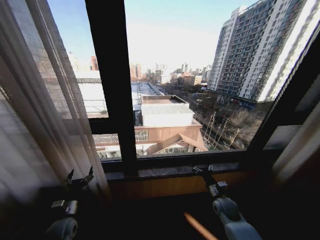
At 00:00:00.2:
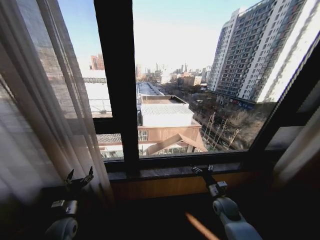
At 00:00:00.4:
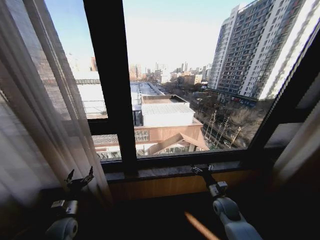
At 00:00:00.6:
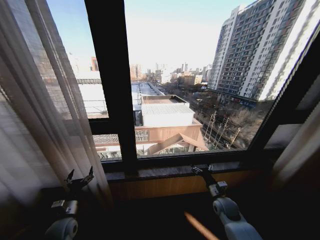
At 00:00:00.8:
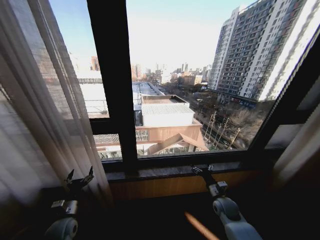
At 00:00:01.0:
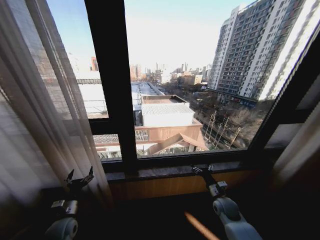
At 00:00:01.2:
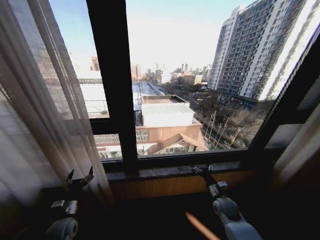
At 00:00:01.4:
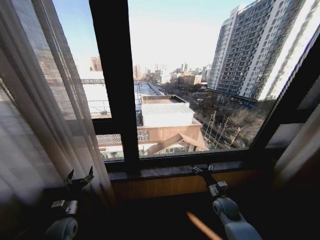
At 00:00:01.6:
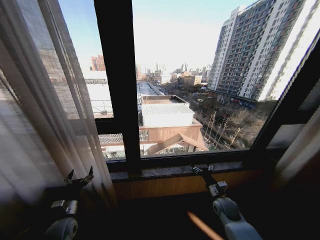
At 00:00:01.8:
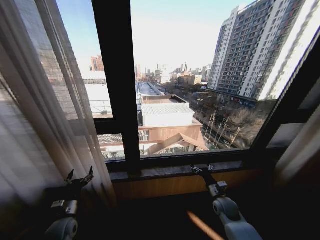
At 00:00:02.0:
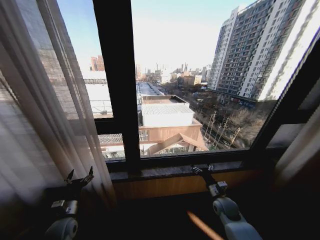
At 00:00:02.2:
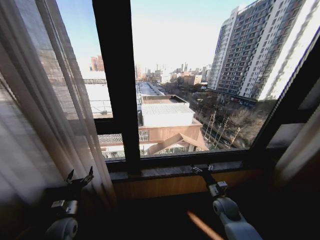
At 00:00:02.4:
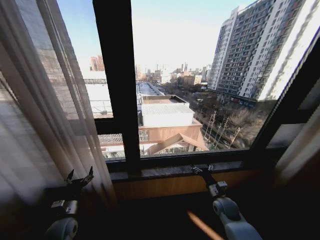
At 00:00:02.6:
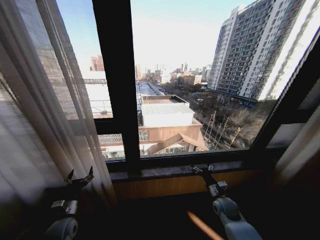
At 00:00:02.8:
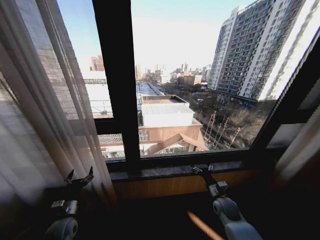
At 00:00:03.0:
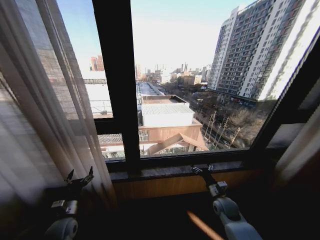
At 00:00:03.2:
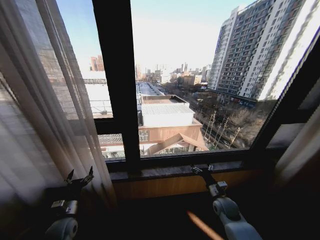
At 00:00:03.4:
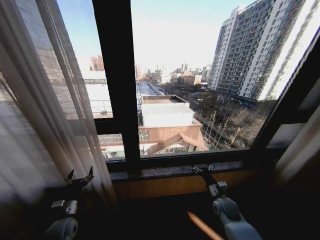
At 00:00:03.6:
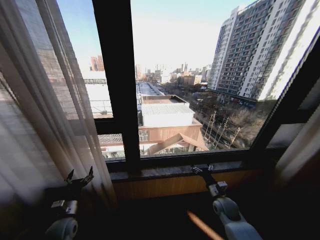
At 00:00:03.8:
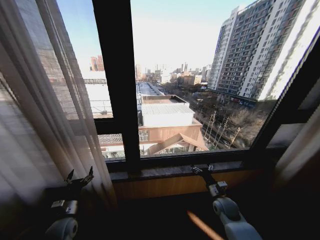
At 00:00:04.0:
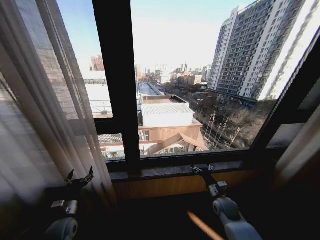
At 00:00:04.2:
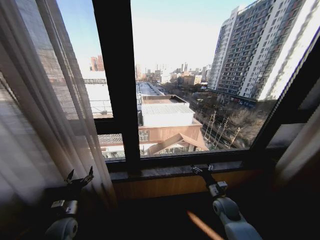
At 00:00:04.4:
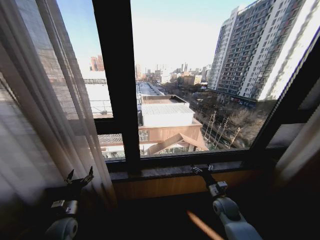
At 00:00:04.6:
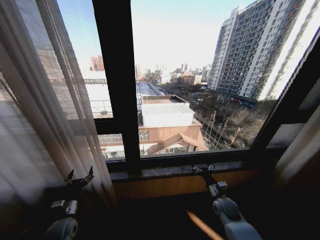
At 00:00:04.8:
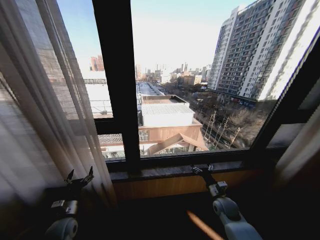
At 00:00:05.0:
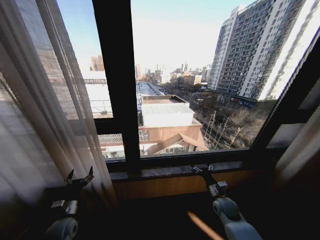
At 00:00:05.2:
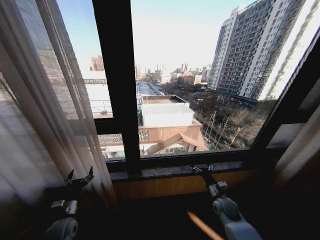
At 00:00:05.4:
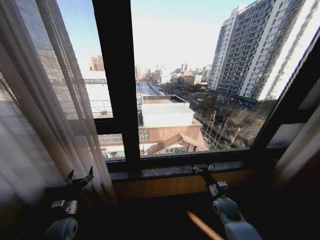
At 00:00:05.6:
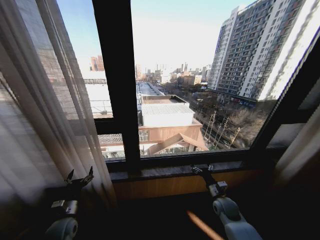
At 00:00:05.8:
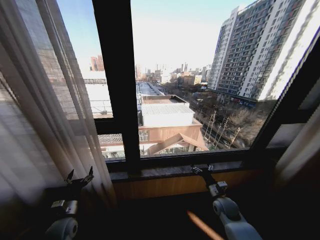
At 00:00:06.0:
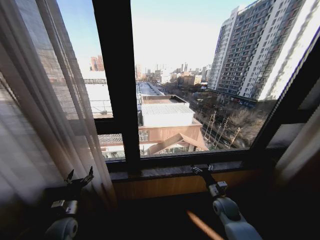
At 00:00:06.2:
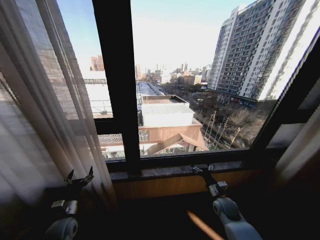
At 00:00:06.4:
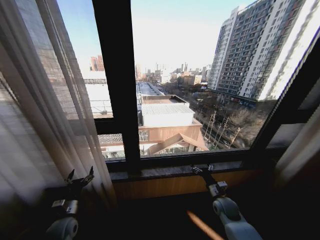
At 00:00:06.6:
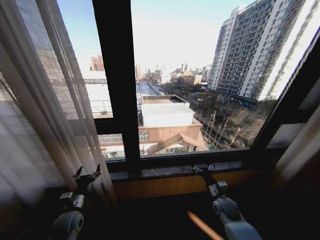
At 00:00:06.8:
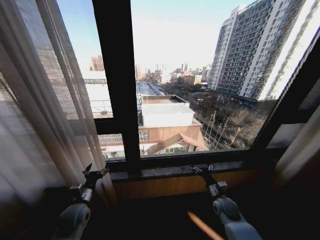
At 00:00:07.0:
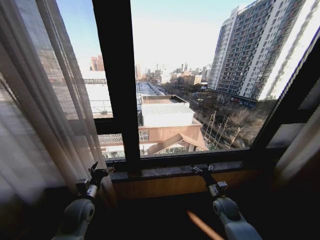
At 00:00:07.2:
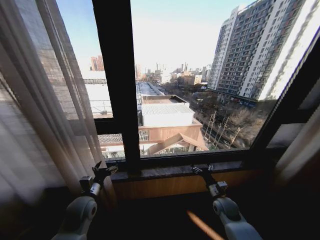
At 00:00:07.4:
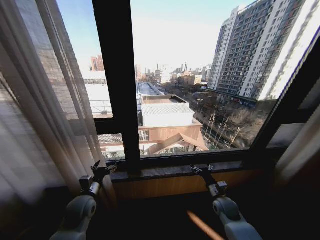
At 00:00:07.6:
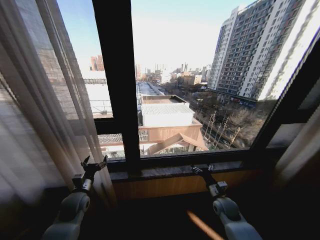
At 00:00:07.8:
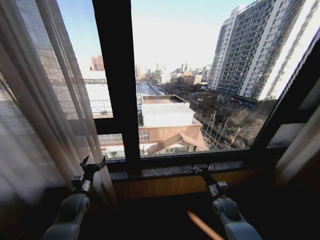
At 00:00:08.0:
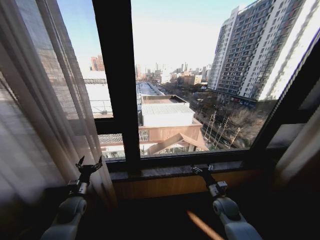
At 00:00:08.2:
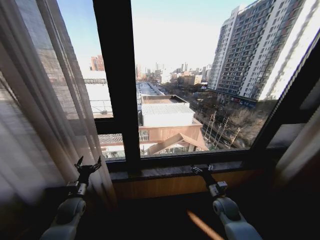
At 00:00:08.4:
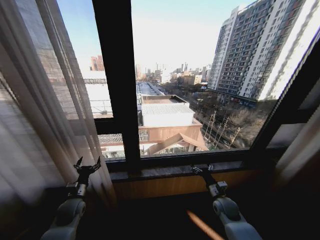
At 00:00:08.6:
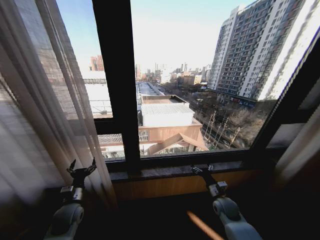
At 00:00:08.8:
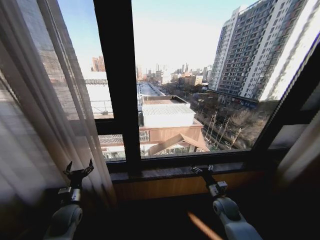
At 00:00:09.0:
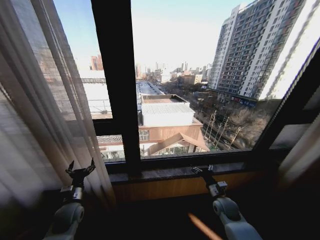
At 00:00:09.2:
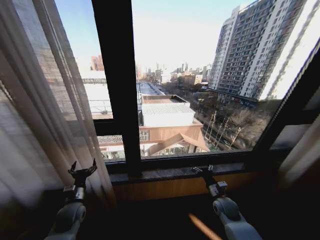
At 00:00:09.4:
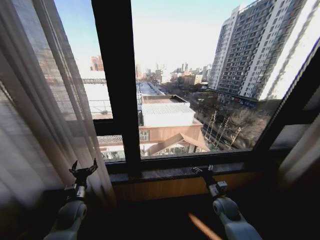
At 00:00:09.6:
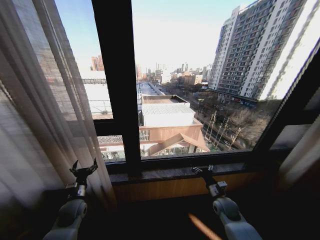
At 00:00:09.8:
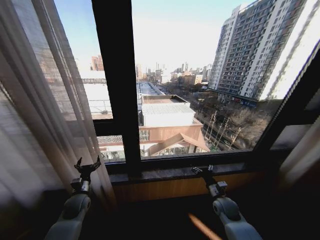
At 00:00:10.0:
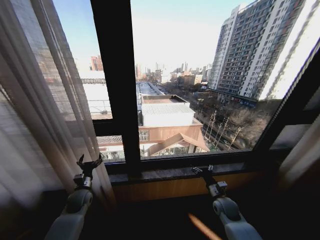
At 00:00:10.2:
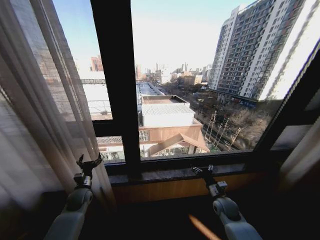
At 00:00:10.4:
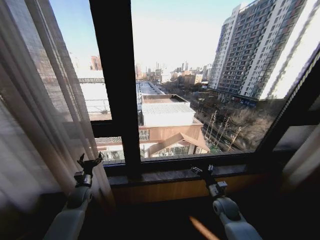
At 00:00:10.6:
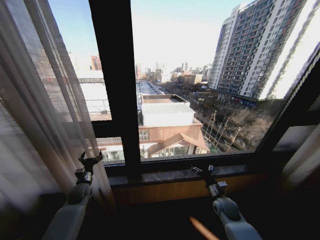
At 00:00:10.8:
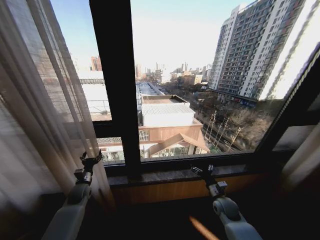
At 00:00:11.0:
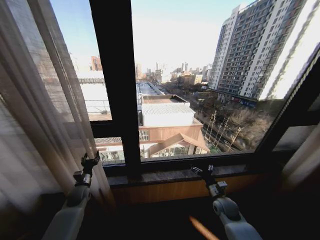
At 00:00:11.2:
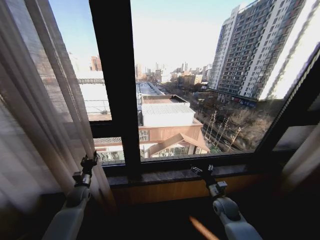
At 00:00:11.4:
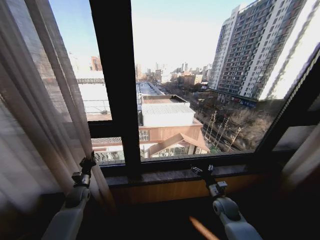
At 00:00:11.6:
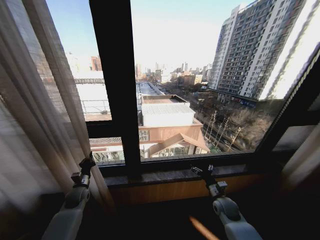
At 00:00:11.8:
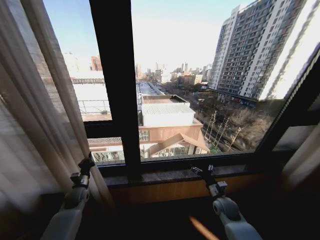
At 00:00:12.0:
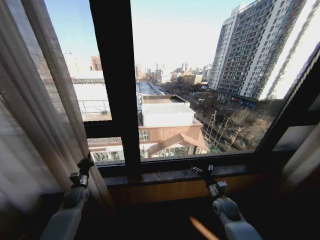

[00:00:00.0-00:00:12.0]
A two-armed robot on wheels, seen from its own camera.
Task of the whole recording: Open the curtains by pulling them apart, changing their state from closed to fully open.
00:00:00.0 to 00:00:06.0: The two grippers keep their place.
00:00:06.0 to 00:00:07.6: The left gripper heads forward and upward, covering roughly 10 cm.
00:00:07.6 to 00:00:09.0: There are only small adjustments of the grippers.
00:00:09.0 to 00:00:10.4: The left gripper is displaced forward by approximately 10 cm.
00:00:10.4 to 00:00:12.0: The left gripper closes its fingers.

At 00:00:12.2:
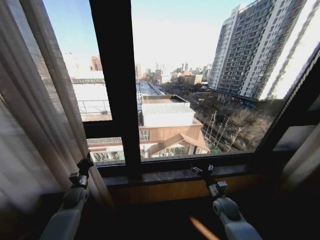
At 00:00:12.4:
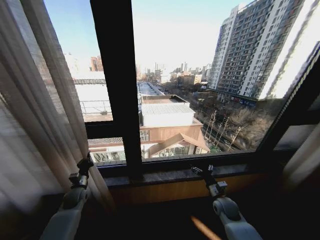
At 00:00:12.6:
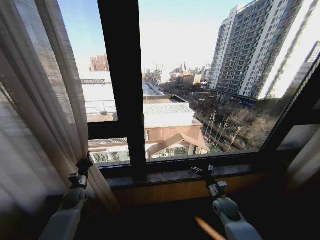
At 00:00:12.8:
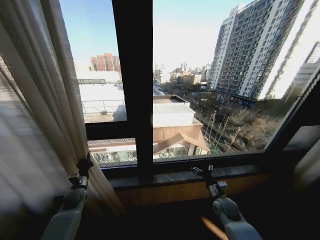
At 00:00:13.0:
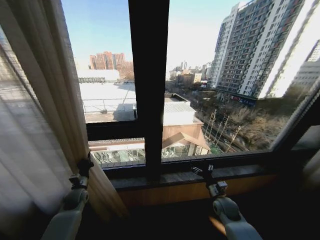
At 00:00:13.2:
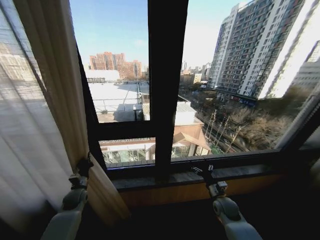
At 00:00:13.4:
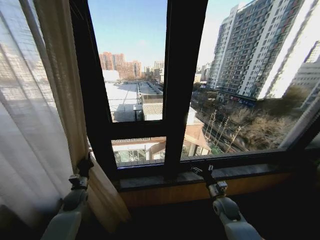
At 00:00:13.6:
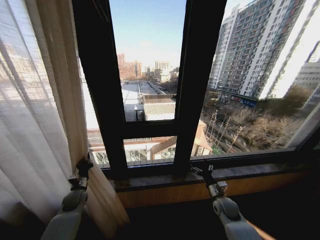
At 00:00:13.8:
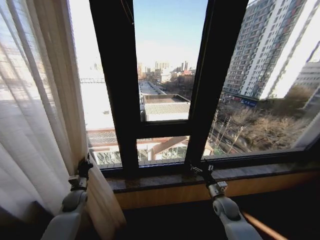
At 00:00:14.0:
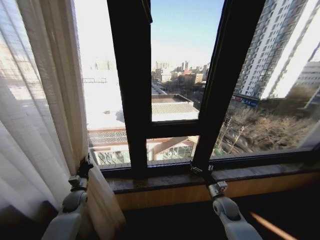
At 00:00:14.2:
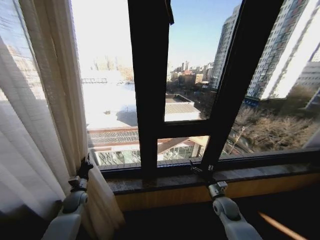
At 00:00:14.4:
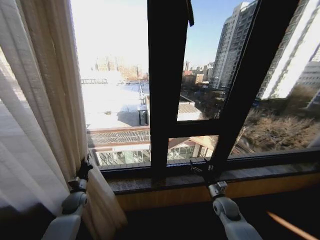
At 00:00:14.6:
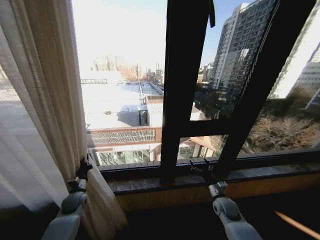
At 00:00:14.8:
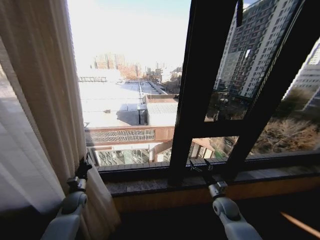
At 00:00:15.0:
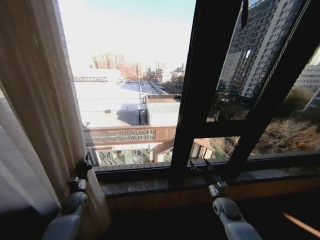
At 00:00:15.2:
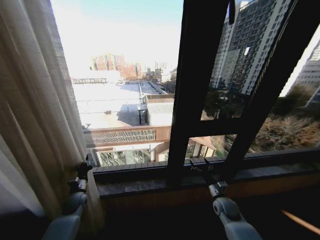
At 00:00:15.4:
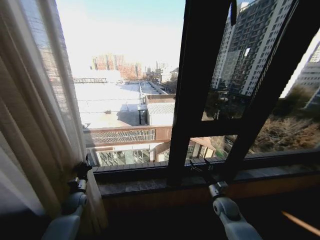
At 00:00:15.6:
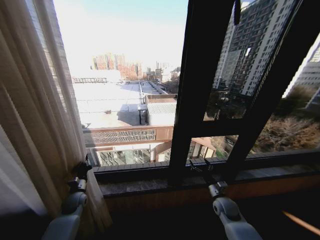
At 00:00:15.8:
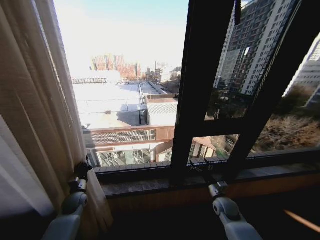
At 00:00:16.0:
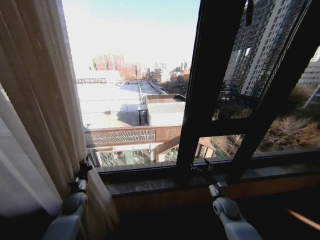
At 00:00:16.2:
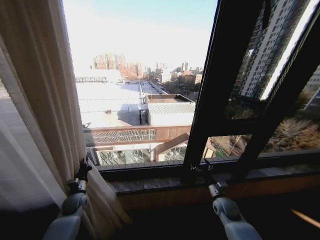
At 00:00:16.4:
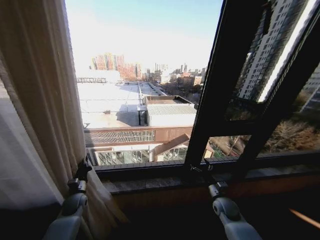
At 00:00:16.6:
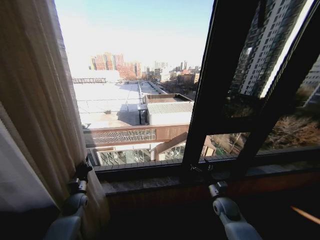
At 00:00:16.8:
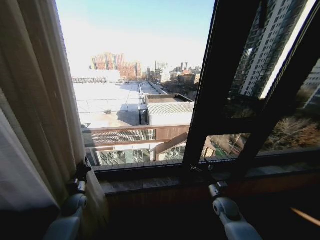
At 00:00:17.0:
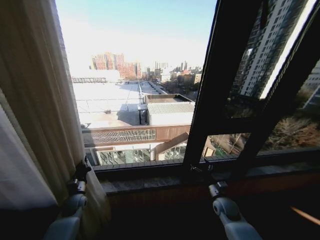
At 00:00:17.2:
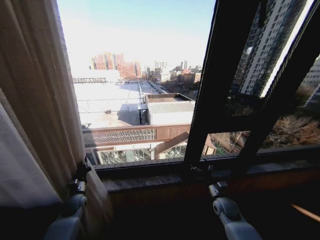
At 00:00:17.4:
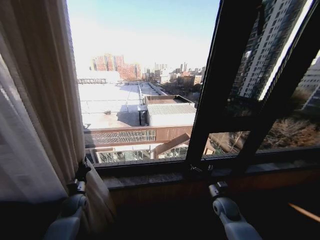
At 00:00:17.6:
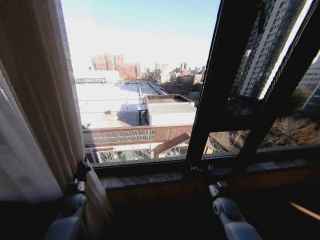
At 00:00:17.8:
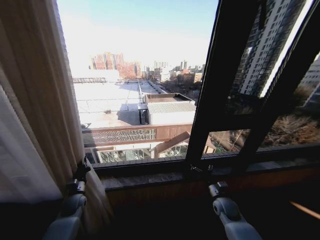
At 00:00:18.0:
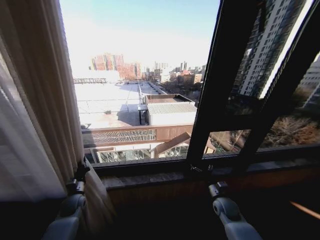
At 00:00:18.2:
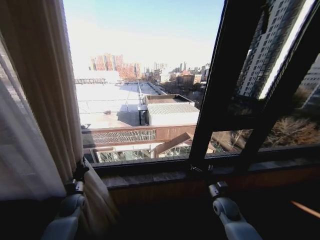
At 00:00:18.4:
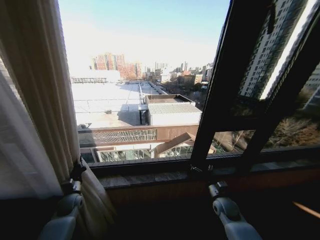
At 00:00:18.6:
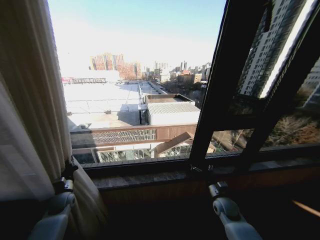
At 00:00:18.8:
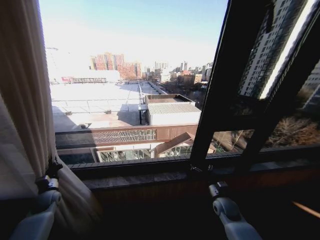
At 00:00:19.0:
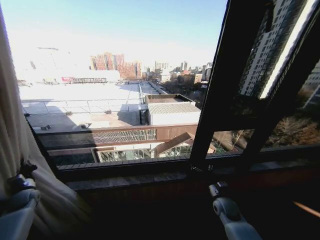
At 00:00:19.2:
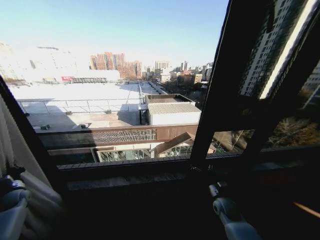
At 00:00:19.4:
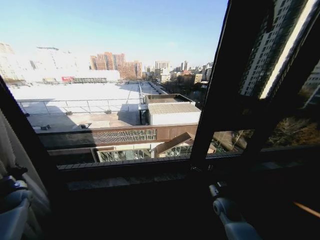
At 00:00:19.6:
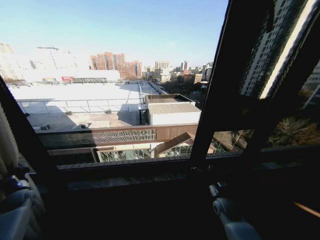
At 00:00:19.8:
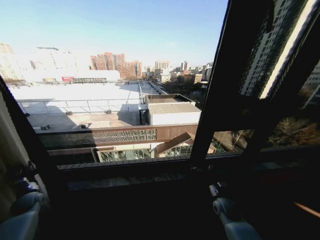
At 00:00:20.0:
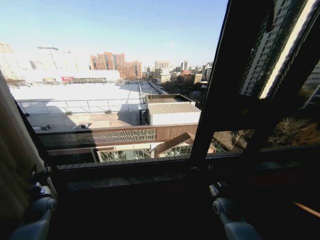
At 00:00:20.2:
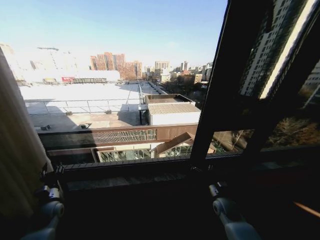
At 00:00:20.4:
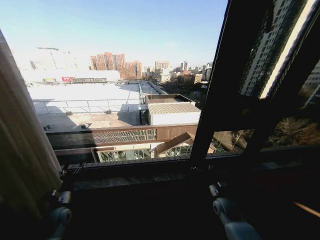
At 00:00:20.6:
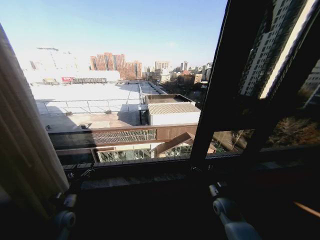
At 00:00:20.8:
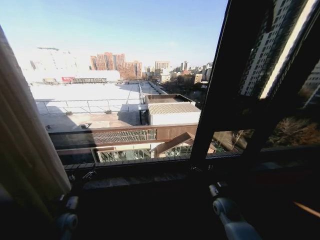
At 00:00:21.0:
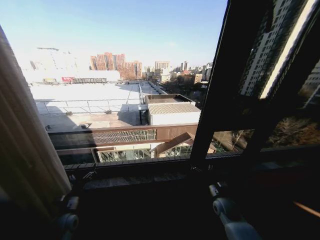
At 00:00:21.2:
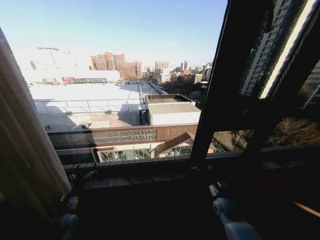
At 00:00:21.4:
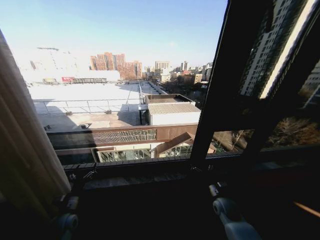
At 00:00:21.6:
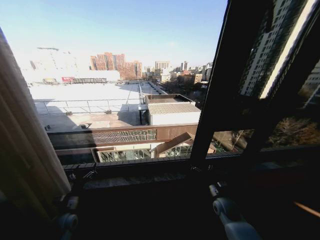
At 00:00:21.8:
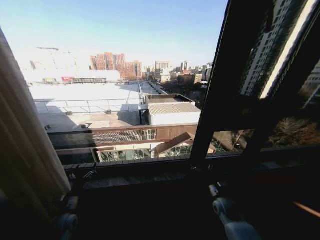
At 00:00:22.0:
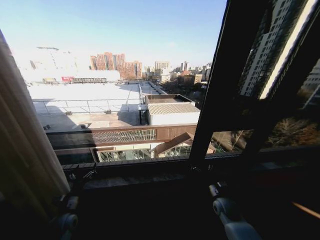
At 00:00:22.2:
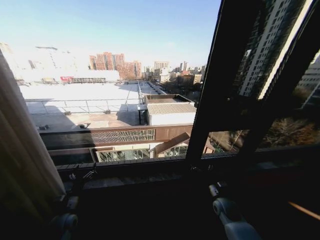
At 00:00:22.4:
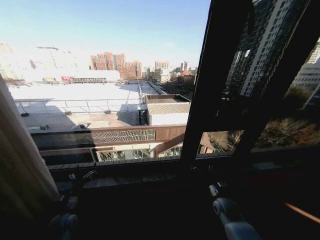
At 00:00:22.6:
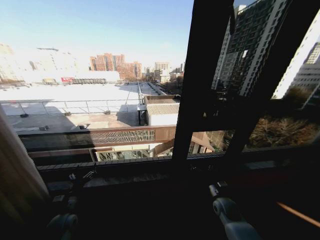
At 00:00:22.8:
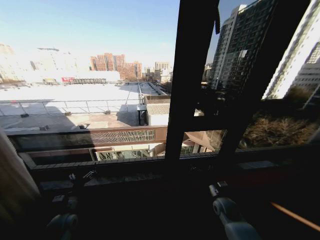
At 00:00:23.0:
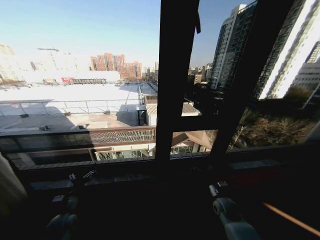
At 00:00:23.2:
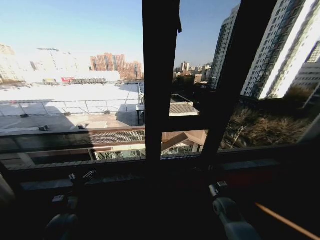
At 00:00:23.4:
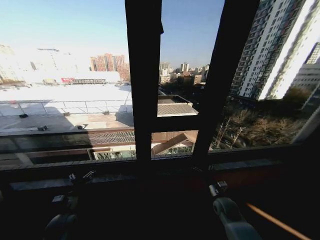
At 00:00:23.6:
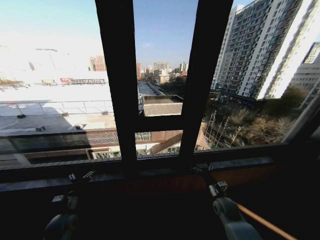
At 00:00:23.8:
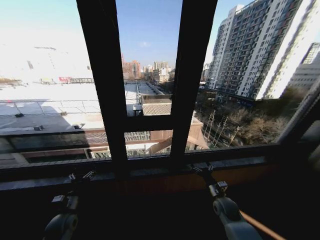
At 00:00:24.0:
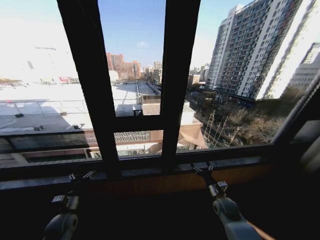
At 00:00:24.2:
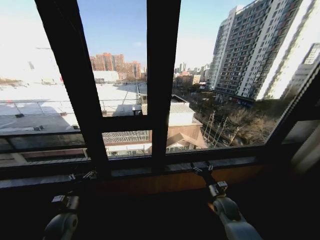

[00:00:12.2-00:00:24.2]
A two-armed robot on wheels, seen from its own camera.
Task of the whole recording: Open the curtains by pulling them apart, changing their state from closed to fully open.
00:00:18.2 to 00:00:19.8: The left gripper shifts approximately 20 cm to the left.
00:00:19.8 to 00:00:21.2: The left gripper shifts about 20 cm to the right, and opens.
